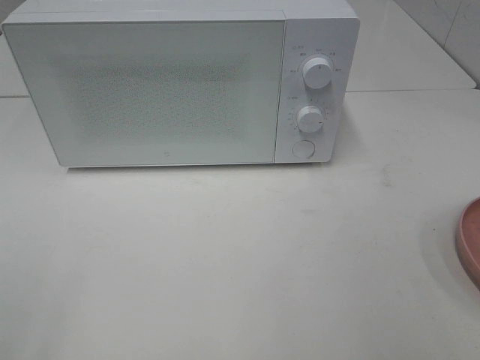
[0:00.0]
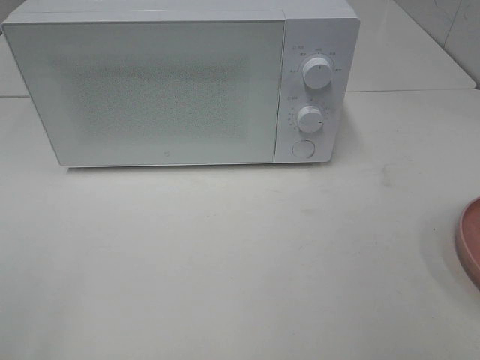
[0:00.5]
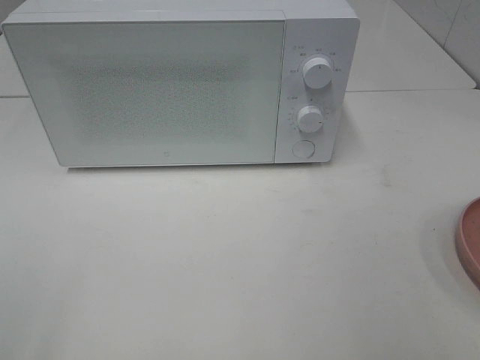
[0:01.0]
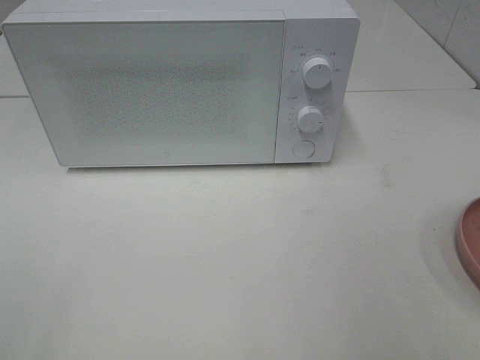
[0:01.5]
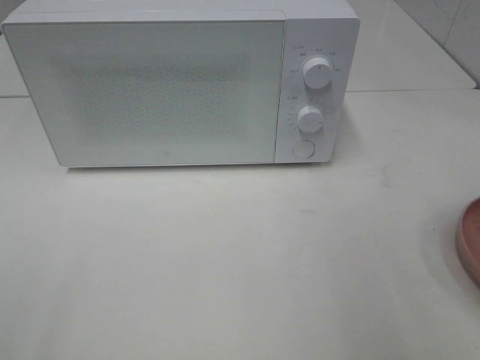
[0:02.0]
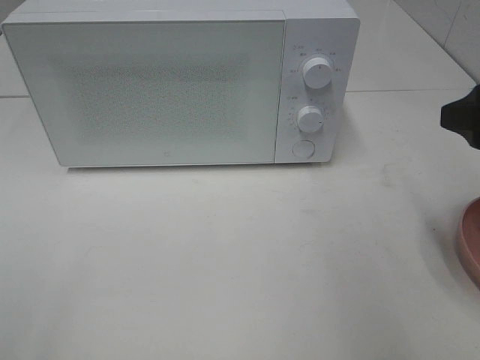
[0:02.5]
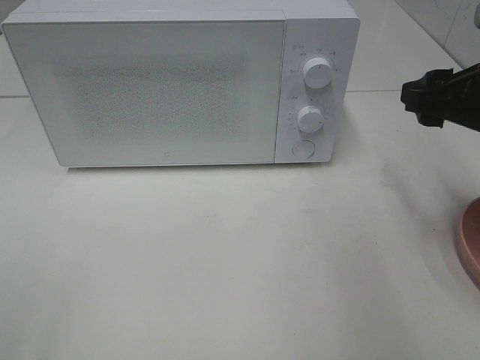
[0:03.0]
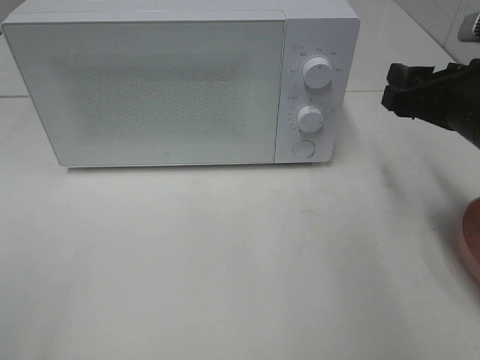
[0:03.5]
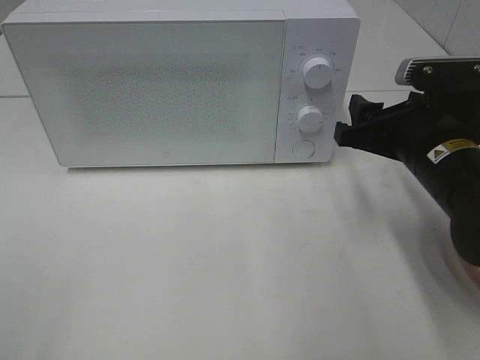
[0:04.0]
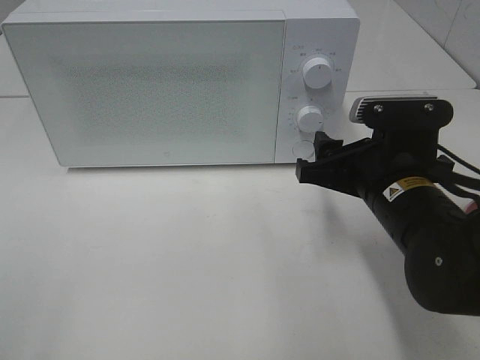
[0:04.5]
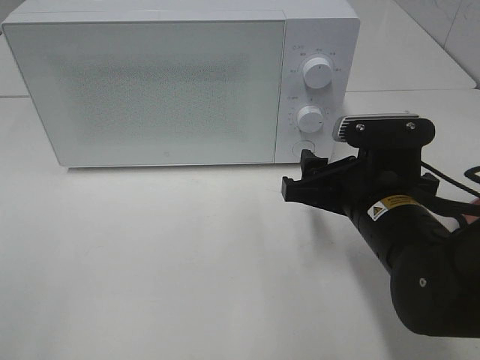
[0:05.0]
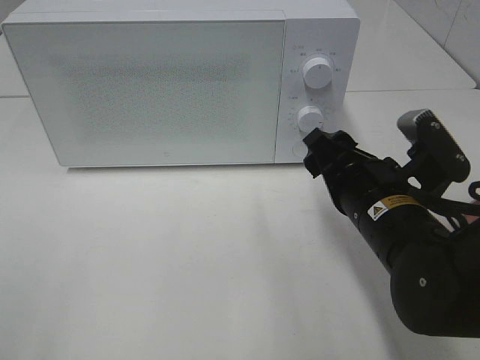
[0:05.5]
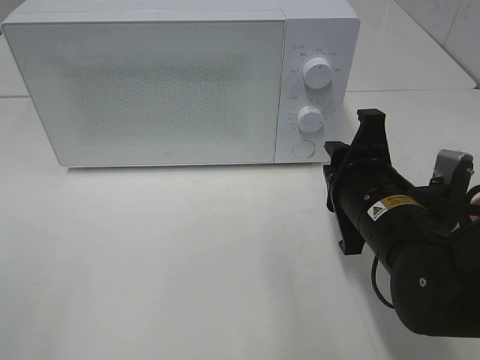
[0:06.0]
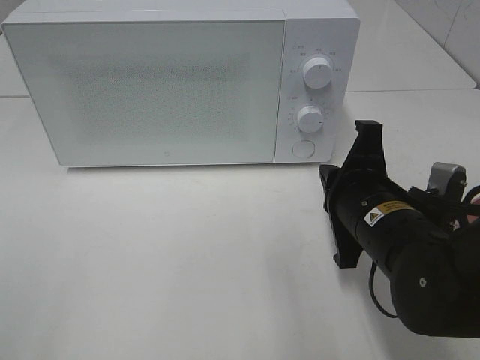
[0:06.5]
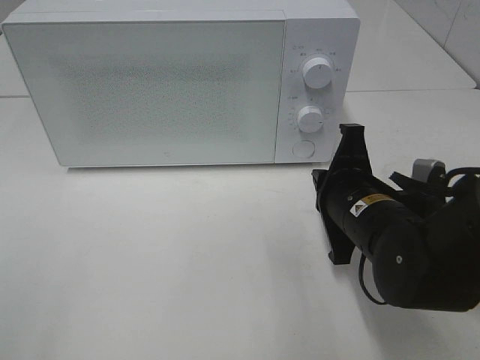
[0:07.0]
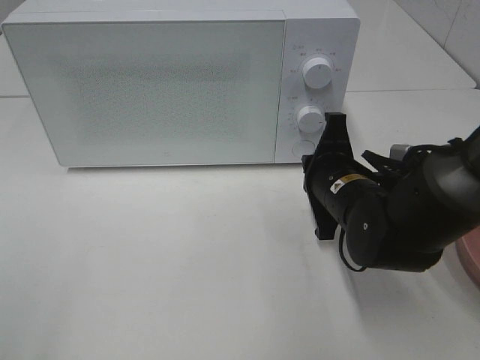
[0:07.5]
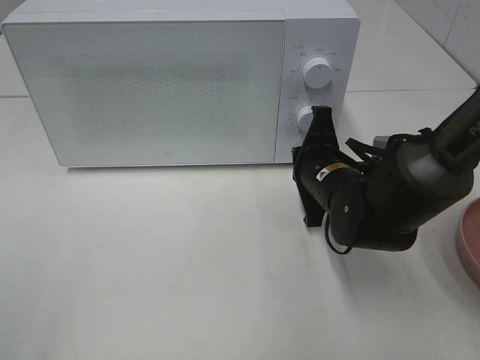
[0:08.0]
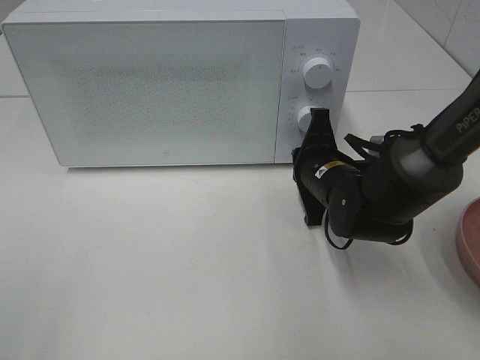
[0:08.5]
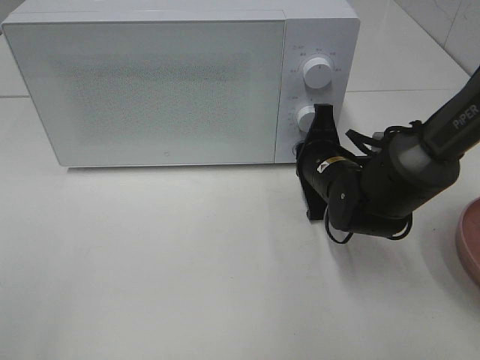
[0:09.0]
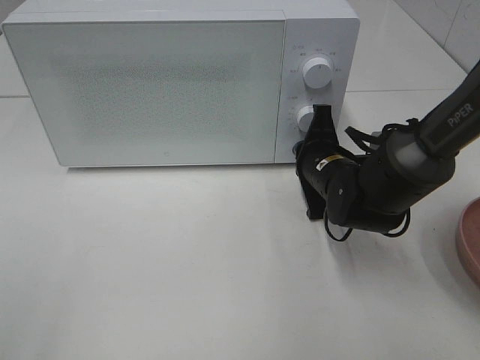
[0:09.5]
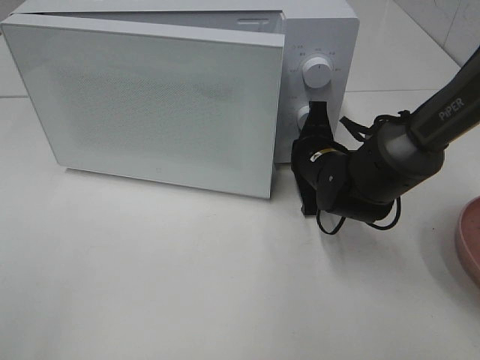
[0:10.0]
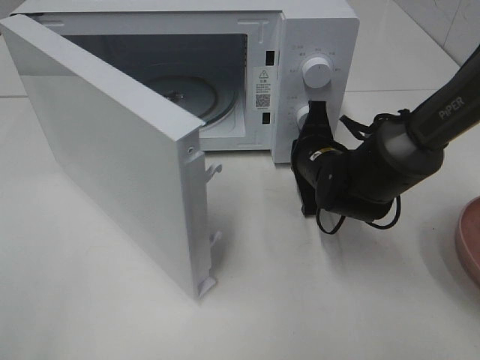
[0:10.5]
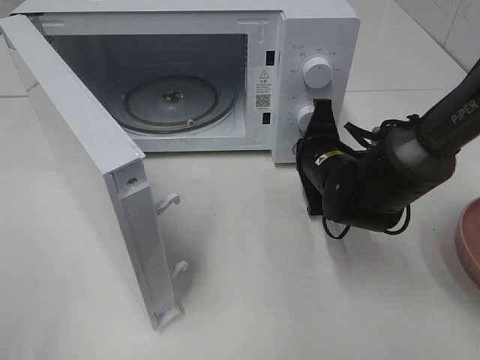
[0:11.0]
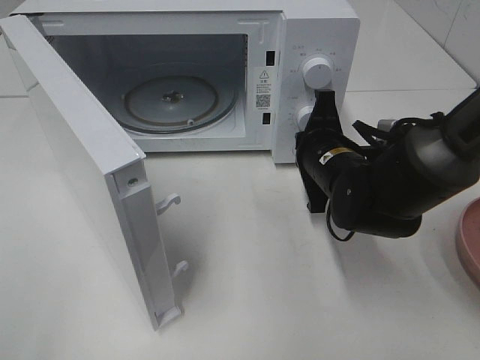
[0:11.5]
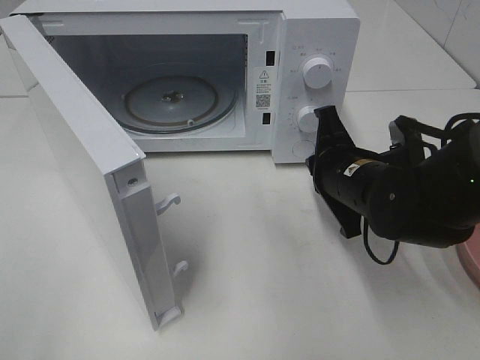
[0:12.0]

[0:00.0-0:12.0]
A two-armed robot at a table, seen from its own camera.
Task of the whole recording: Heat the burger.
Step, 0.0 to 11.5 s: Right hand: press the switch.
2.0 to 4.0 s: The right gripper shifts roughly 20 cm downward, forward and to the left.
4.0 to 6.0 s: The right gripper is displaced to the left by roughly 5 cm, and closes its fingers.
6.0 to 8.0 s: The right gripper moves forward, about 10 cm, and closes up.
8.0 to 10.0 s: The grippers stay close to where they were, moving slightly.
10.0 to 12.0 s: The right gripper moves backward, about 5 cm.

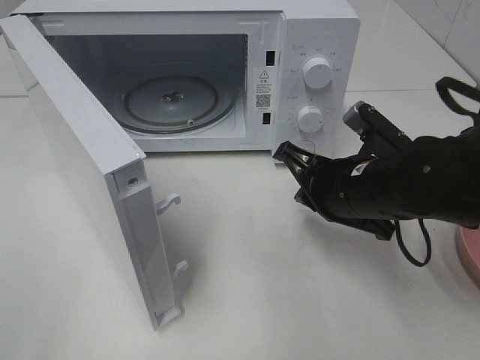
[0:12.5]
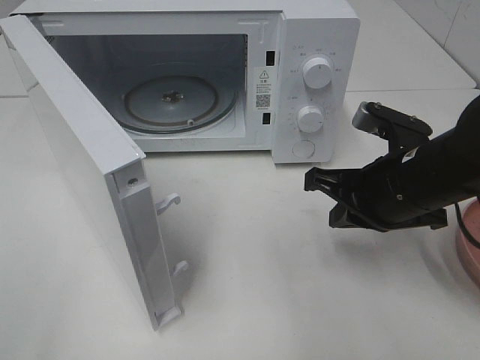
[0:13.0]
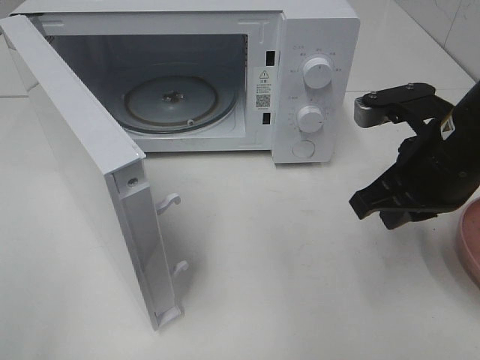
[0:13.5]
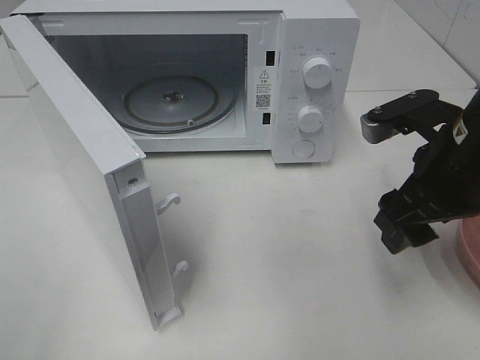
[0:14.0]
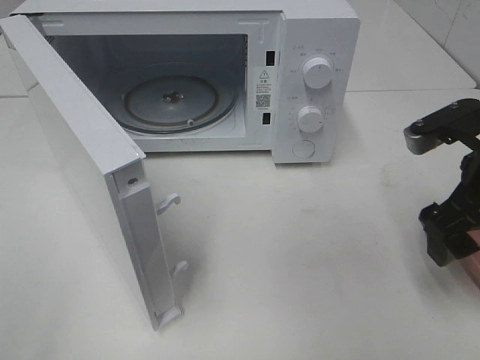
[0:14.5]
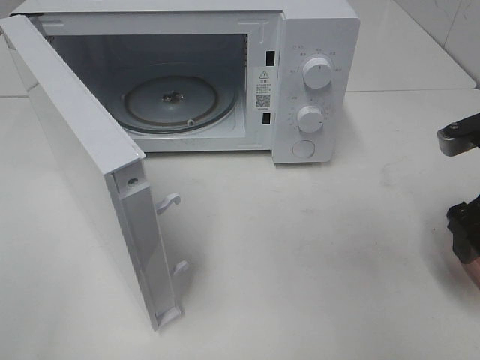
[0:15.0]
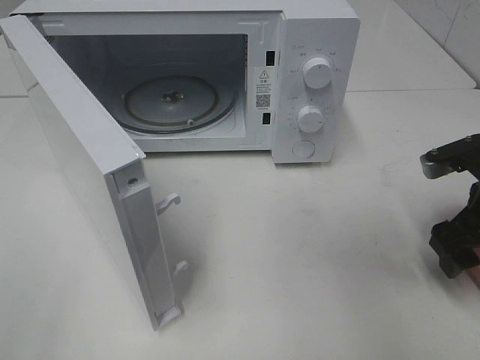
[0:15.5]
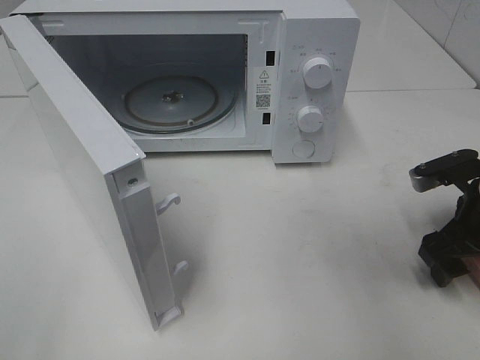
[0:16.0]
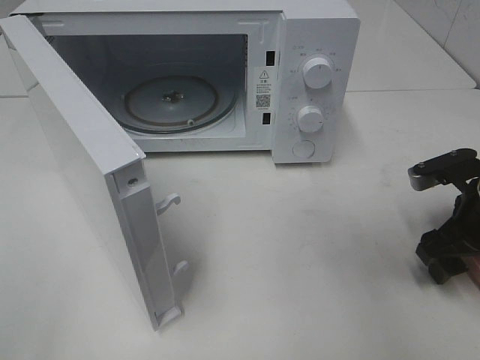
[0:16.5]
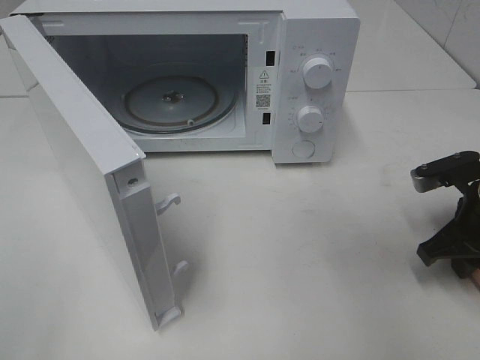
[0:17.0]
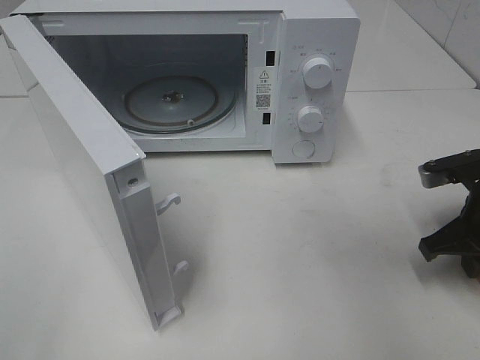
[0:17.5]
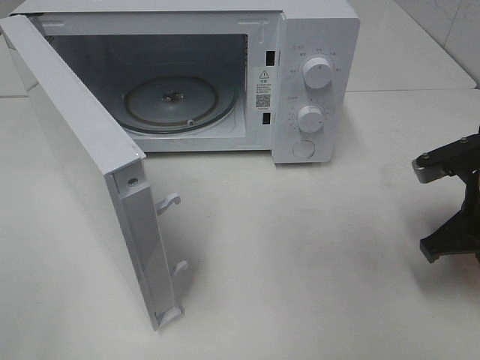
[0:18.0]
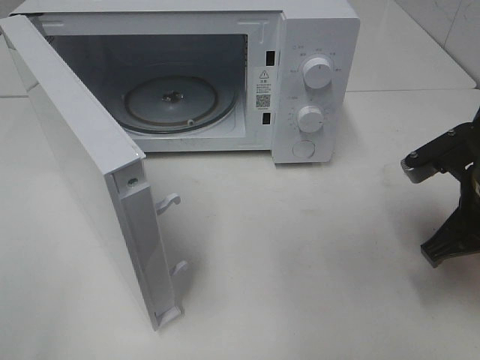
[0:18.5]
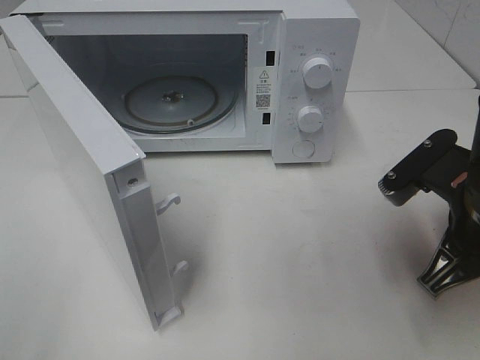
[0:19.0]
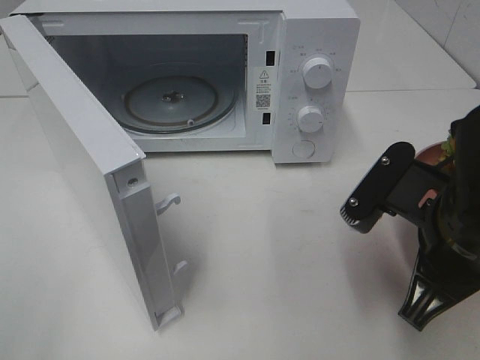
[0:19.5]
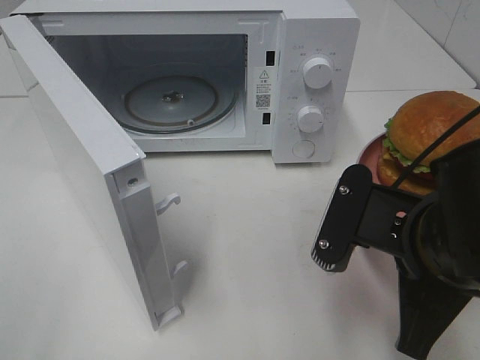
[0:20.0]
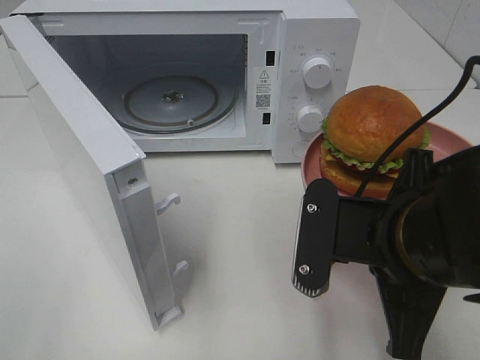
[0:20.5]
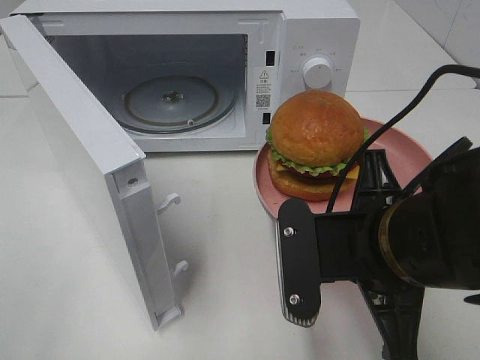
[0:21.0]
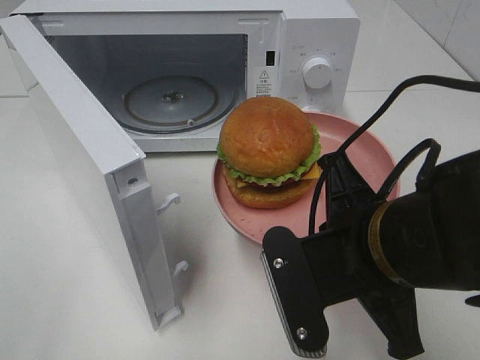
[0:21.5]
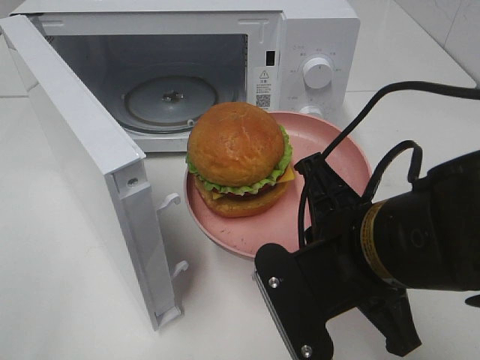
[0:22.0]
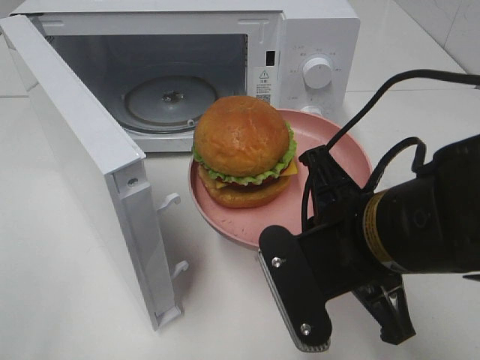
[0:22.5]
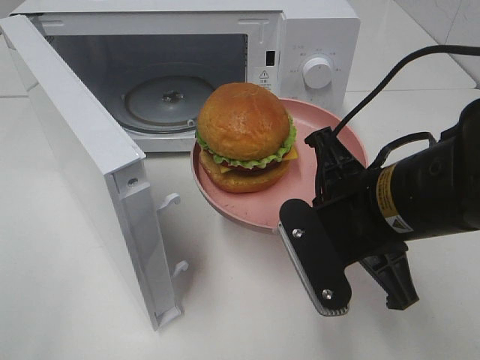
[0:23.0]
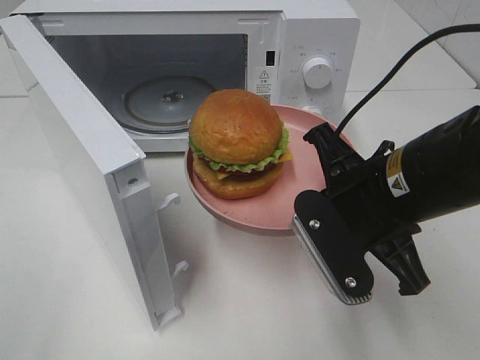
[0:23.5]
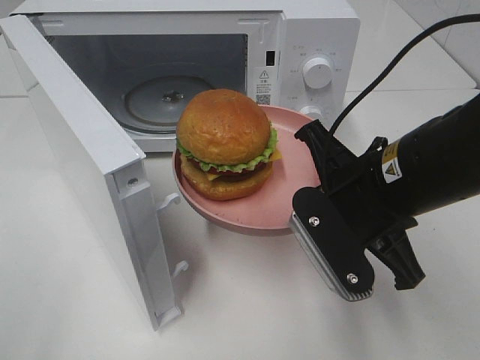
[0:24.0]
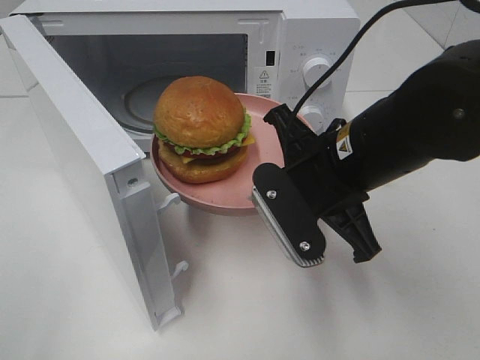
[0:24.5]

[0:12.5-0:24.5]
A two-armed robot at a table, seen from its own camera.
Task of the whole recording: Heat the burger.
Step, 12.5 to 18.5 s: Right hand: grab the plate with the hamburger.
12.5 to 14.5 s: The right gripper heads to the right and upward, covering some 10 cm, and opens up.
14.5 to 16.5 s: The right gripper heads downward, covering some 10 cm.
16.5 to 18.5 s: The right gripper heads upward, covering about 5 cm, and closes its fingers.
18.5 to 20.5 s: The right gripper travels to the left and backward by some 15 cm.
22.5 to 24.5 s: The right gripper travels forward by some 10 cm.

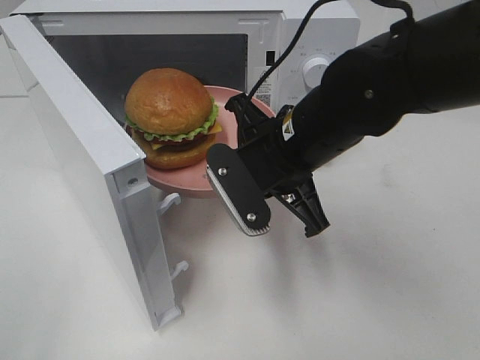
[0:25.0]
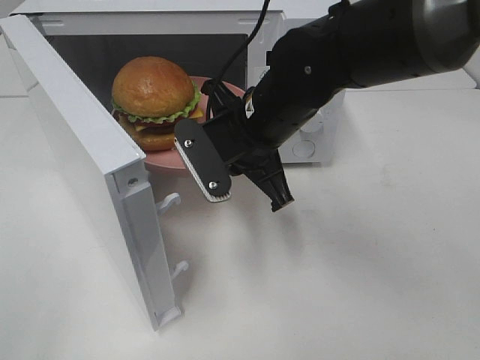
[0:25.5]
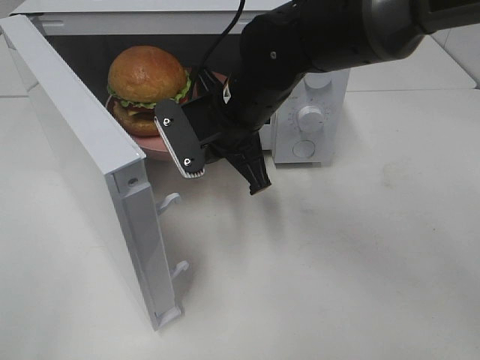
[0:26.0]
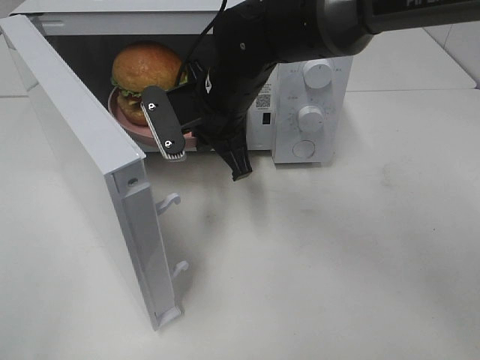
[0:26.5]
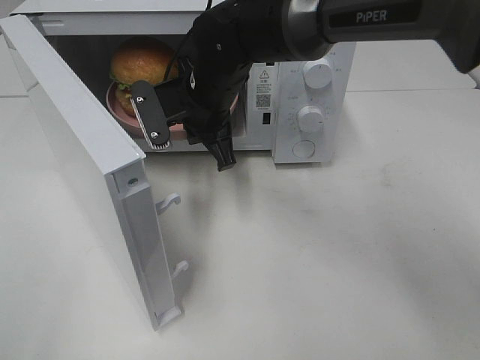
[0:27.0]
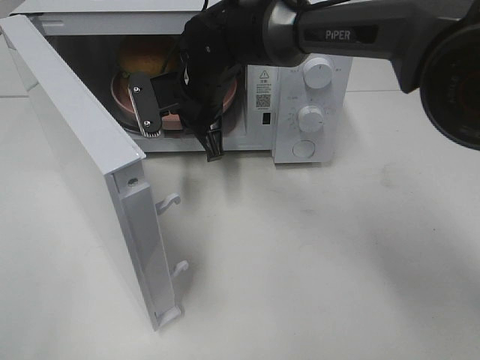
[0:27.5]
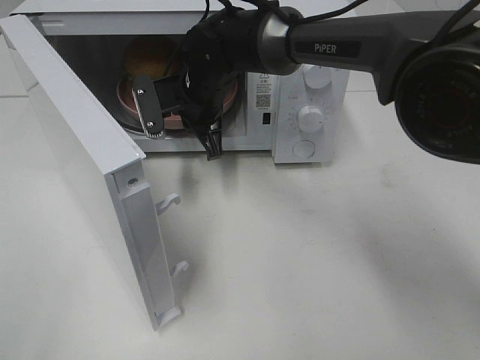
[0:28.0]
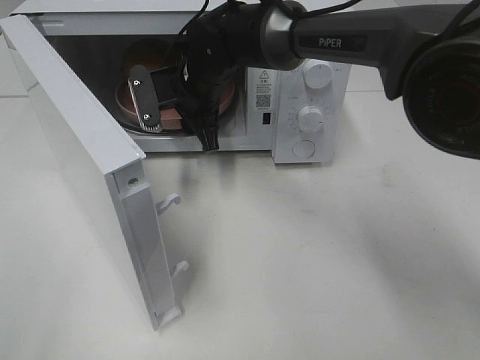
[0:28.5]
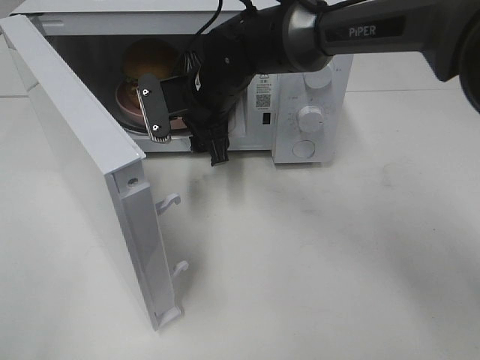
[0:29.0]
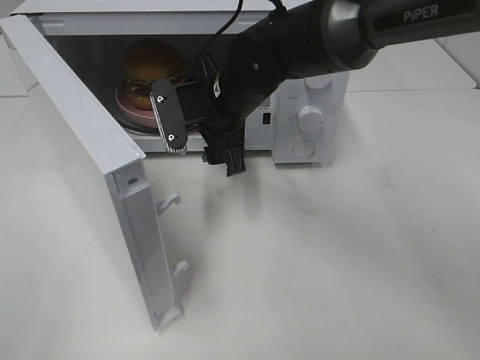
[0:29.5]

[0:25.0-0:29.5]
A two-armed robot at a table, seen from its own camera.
Task of the whole recording: Heat the burger.
Step, 25.0 to 28.5 s: Right hand: place the plate in the microwave.
25.0 to 27.0 s: The right gripper moves forward and to the left, some 15 cm.
27.0 to 29.5 s: The right gripper opens.
